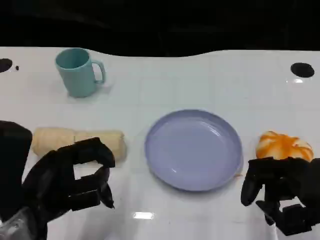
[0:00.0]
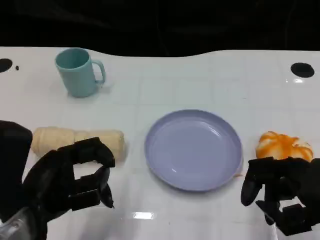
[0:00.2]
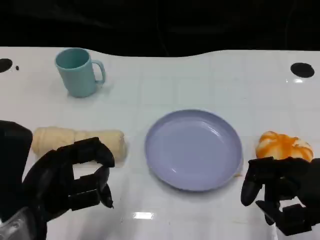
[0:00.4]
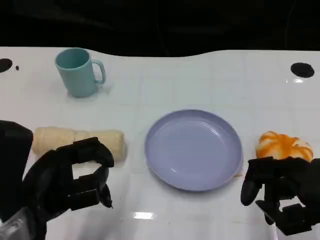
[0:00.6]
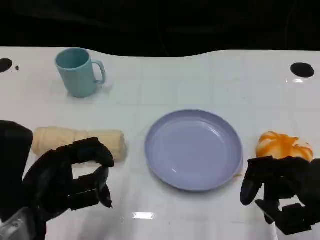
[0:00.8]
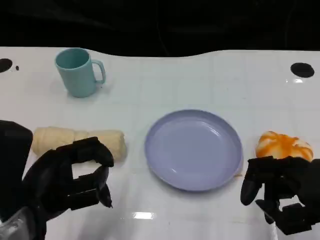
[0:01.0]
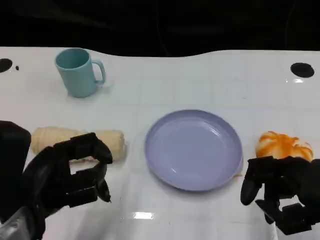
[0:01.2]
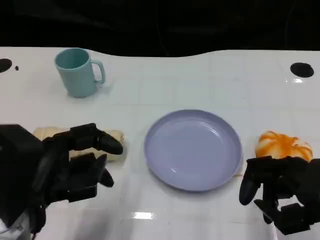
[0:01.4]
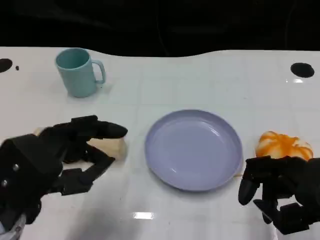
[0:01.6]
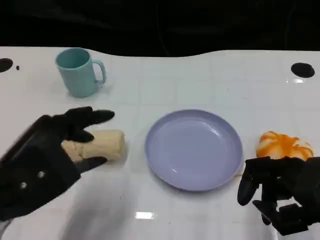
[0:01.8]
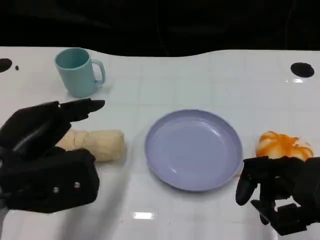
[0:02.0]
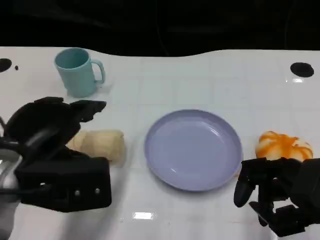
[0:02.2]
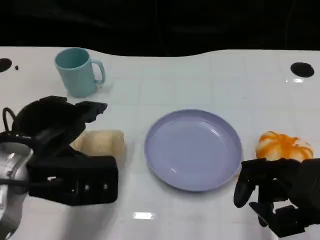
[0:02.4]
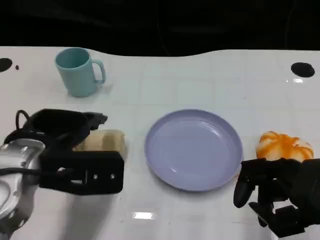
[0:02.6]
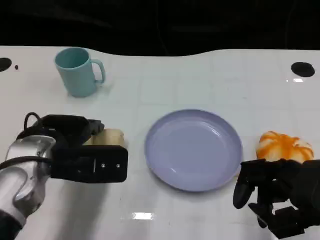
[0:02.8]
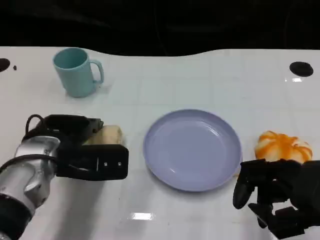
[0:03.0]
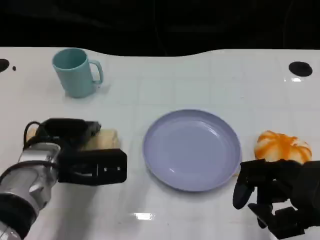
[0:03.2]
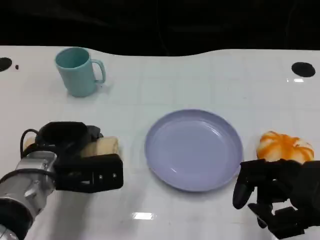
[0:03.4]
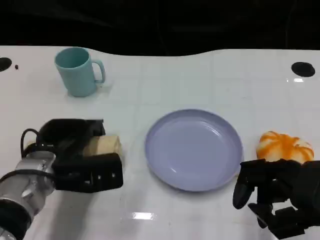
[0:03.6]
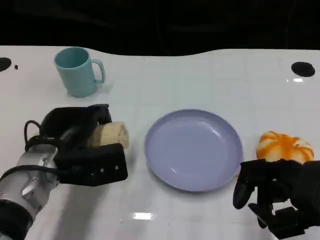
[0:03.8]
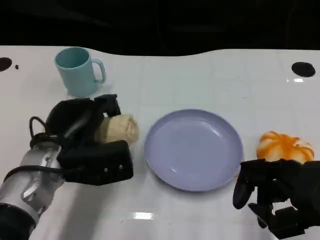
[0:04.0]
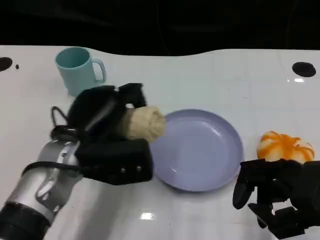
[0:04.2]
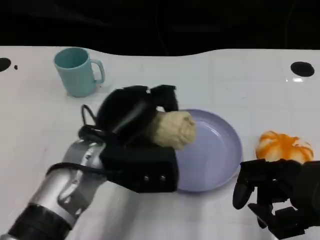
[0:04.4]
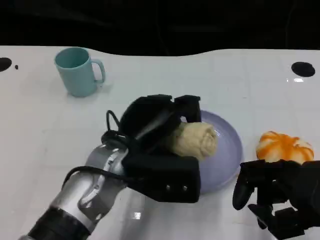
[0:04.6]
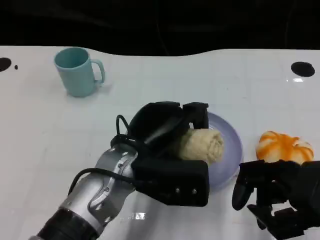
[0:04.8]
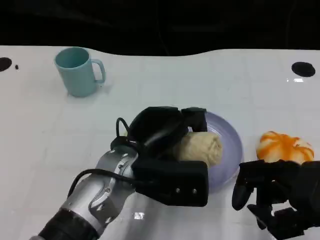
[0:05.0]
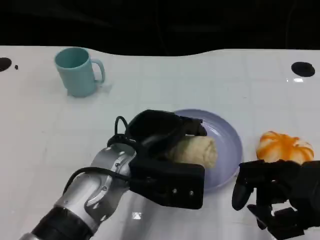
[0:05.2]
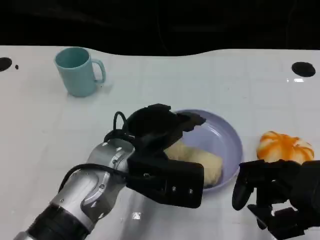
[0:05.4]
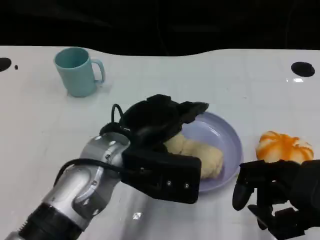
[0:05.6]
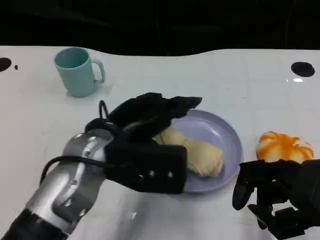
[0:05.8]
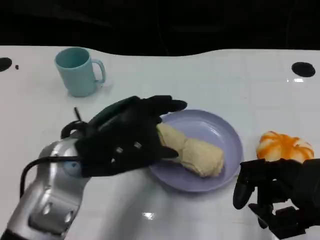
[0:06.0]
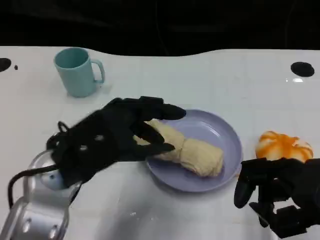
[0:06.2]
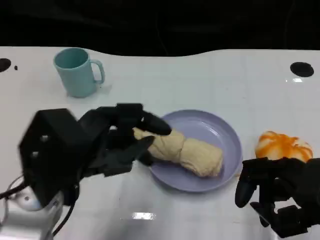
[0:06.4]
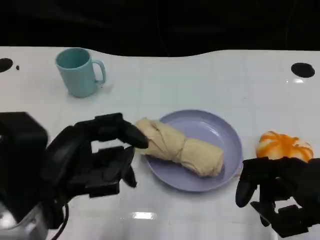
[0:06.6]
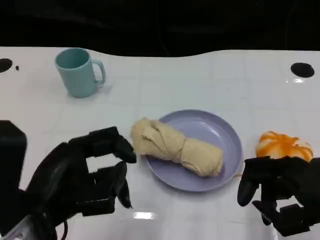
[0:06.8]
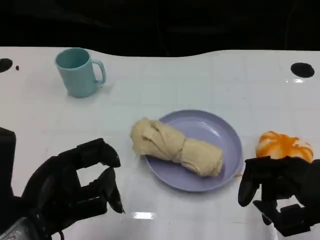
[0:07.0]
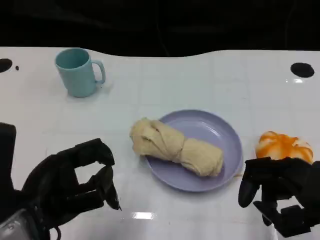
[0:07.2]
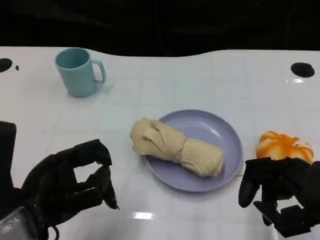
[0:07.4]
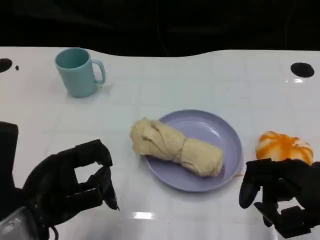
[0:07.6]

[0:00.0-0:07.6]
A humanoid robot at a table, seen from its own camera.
Task of the whole recording: Grasp the towel on the left side of the plate with the left hand and place it into the plate.
0:01.6 to 0:03.0: The left hand goes approximately 10 cm forward and downward.
0:03.0 to 0:04.6: The left hand moves to the right, about 10 cm.
0:04.6 to 0:06.0: The left hand is displaced to the left by approximately 5 cm.
0:06.0 to 0:07.6: The left hand heads backward and to the left, covering approximately 10 cm.

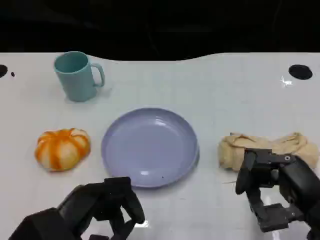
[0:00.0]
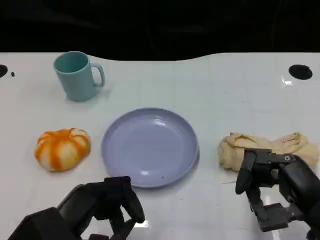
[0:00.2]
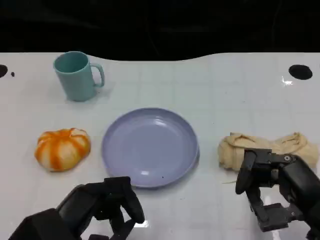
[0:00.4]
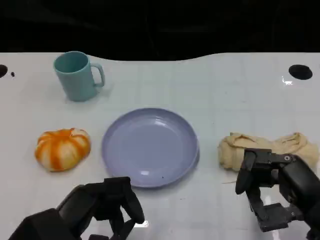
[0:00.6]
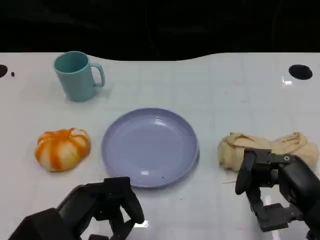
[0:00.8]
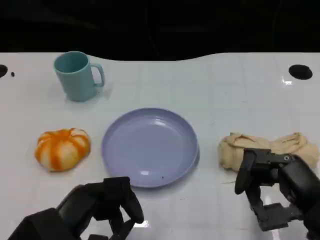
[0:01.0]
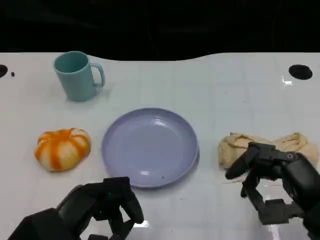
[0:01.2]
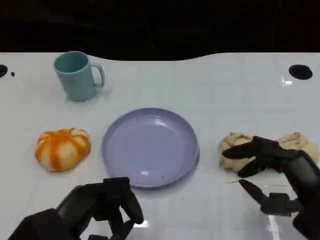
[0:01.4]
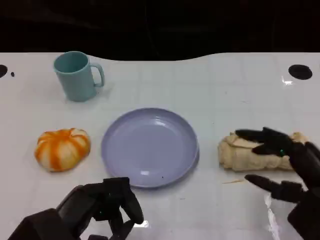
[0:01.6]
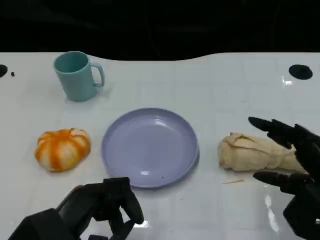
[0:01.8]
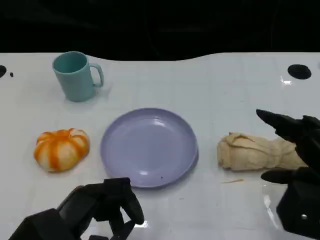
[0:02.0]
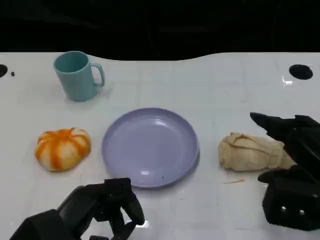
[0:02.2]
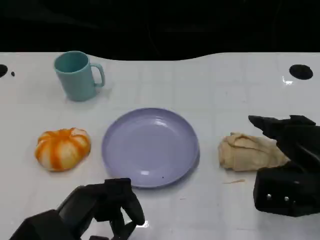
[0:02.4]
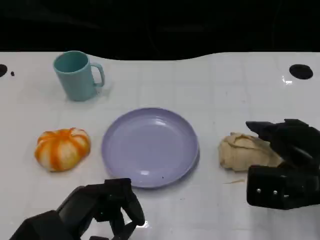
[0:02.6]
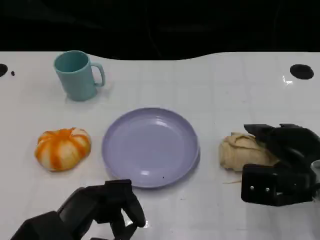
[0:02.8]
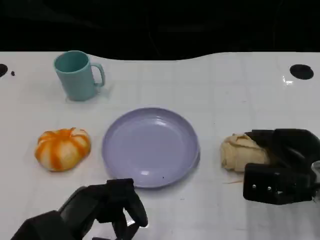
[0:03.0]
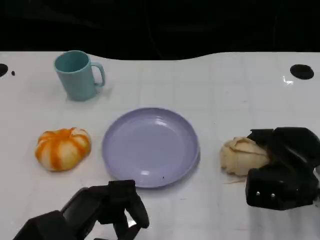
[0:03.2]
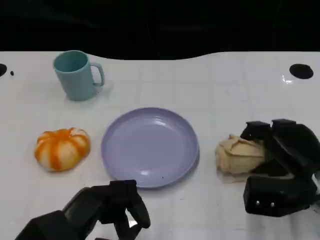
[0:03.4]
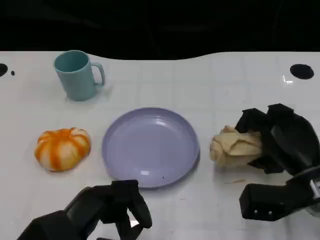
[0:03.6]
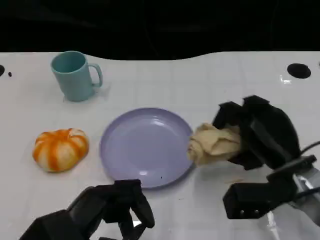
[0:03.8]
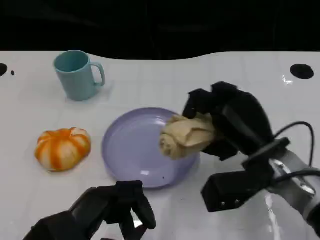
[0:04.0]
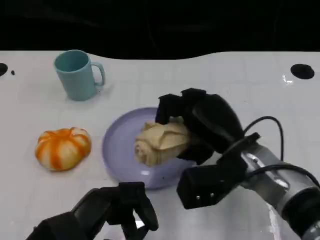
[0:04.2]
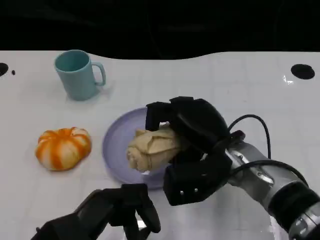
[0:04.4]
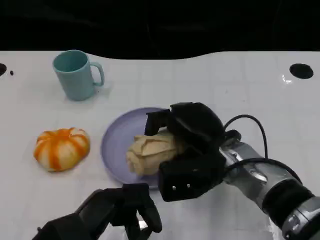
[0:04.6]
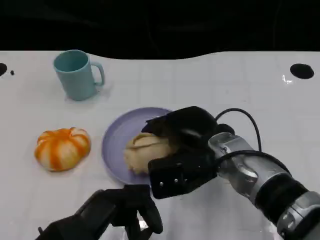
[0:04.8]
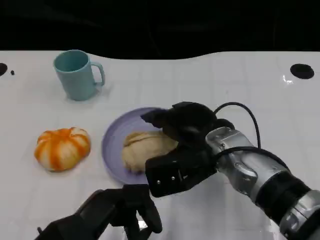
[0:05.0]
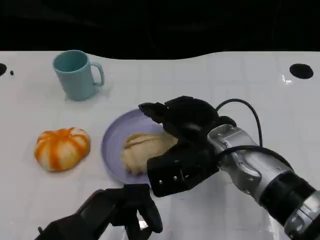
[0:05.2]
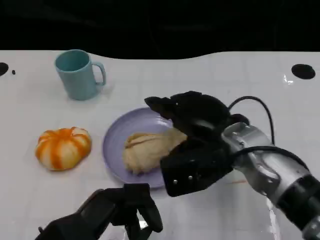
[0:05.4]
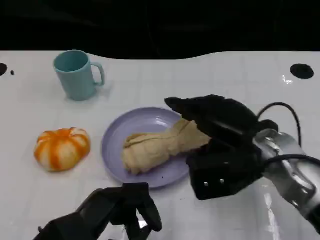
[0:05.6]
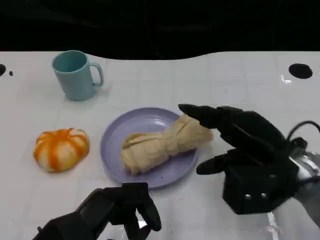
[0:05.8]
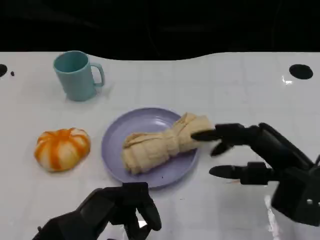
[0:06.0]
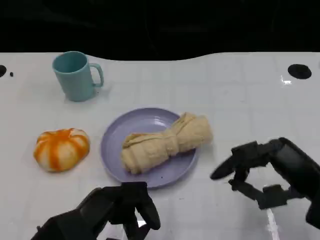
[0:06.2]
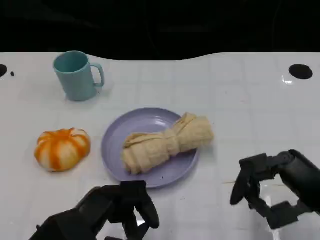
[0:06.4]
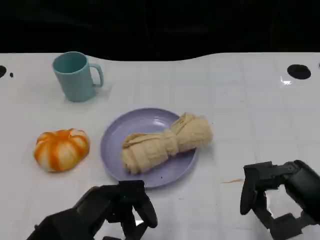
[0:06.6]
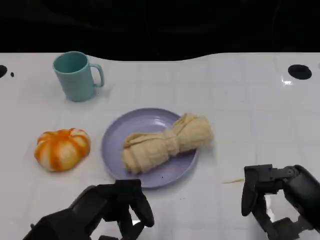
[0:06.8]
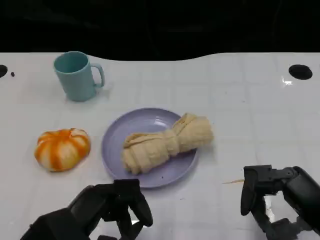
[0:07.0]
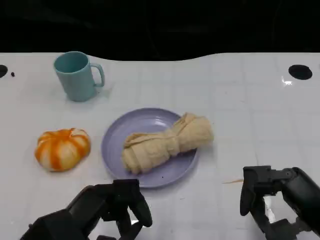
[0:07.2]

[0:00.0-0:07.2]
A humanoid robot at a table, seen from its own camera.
Task of the whole recording: Grasp the towel on the left side of the plate with the left hand and place it into the plate.
0:00.0 to 0:01.4: There are only small adjustments of the hands.
0:01.4 to 0:02.8: The right hand heads forward, covering some 10 cm.
0:02.8 to 0:04.4: The right hand moves to the left, approximately 15 cm.
0:04.4 to 0:05.8: The right hand goes about 10 cm to the right.
0:05.8 to 0:07.2: The right hand is displaced backward by about 10 cm.

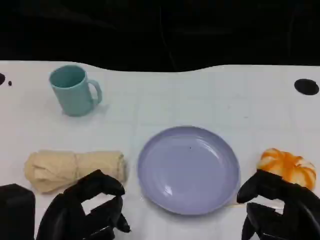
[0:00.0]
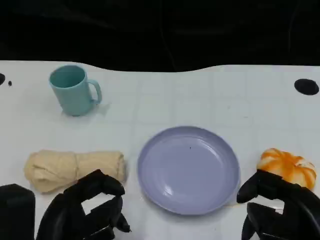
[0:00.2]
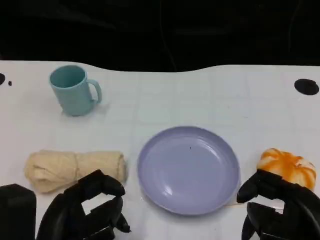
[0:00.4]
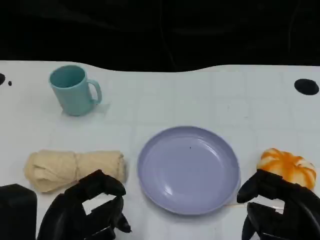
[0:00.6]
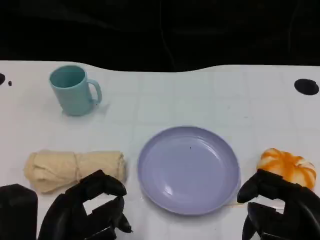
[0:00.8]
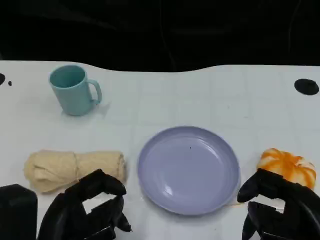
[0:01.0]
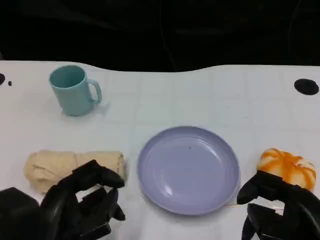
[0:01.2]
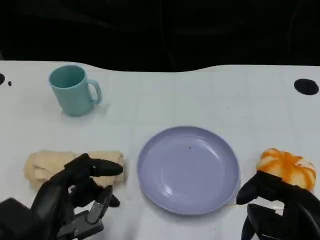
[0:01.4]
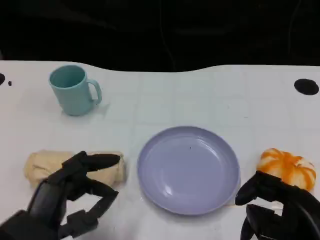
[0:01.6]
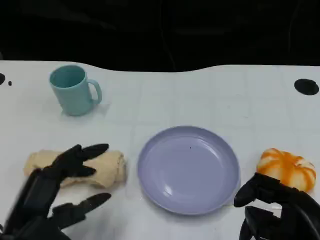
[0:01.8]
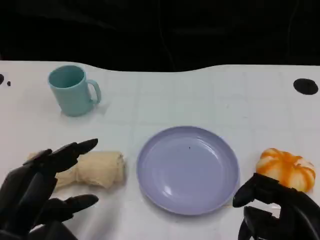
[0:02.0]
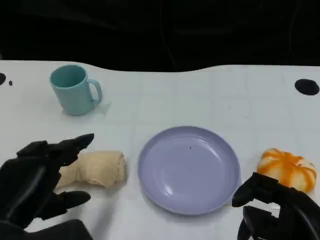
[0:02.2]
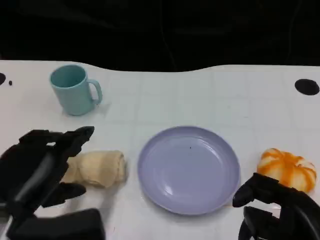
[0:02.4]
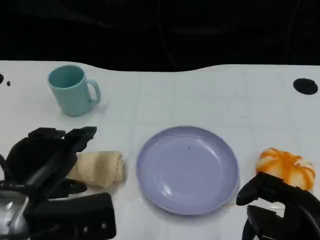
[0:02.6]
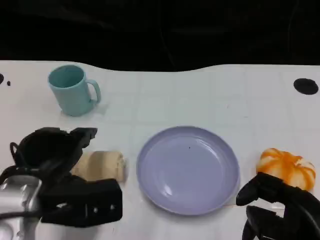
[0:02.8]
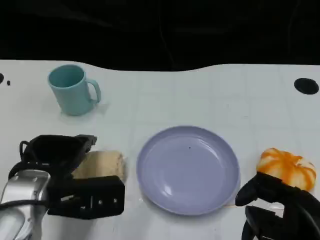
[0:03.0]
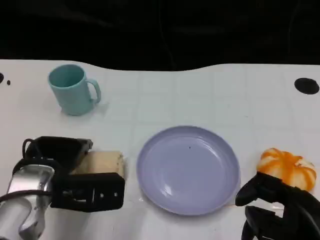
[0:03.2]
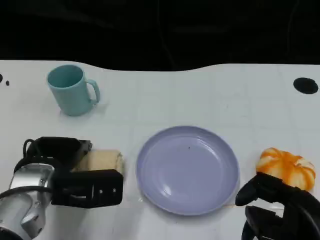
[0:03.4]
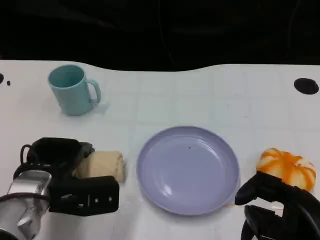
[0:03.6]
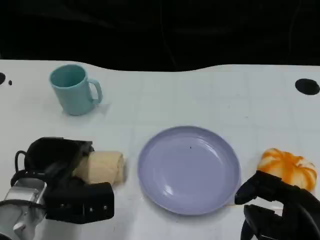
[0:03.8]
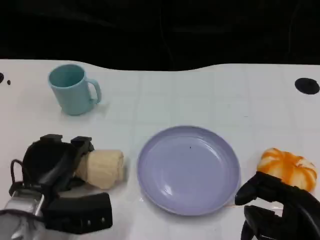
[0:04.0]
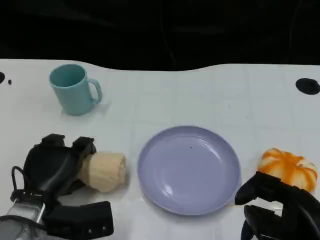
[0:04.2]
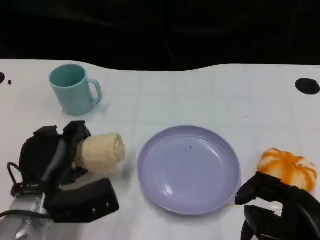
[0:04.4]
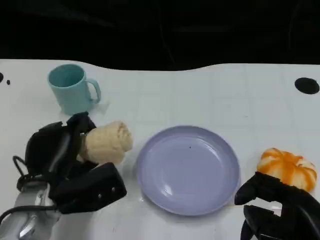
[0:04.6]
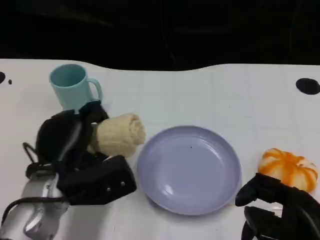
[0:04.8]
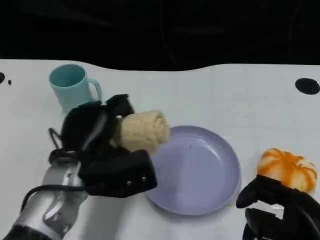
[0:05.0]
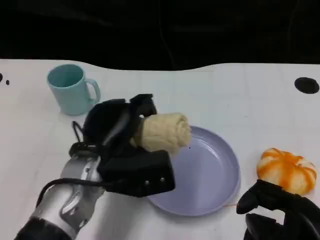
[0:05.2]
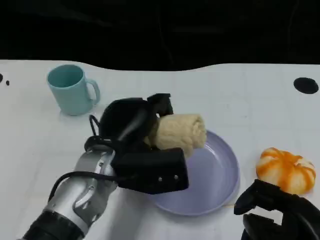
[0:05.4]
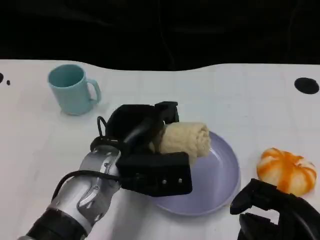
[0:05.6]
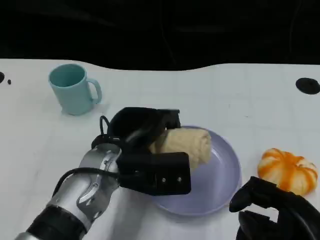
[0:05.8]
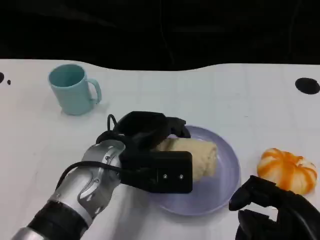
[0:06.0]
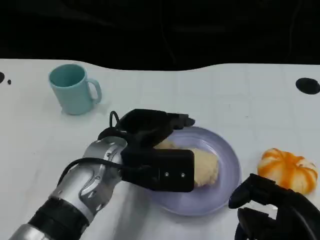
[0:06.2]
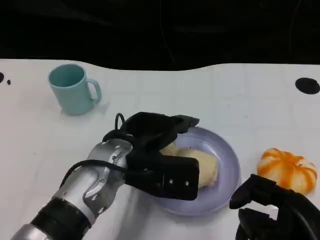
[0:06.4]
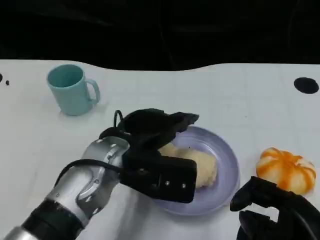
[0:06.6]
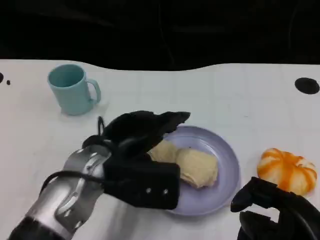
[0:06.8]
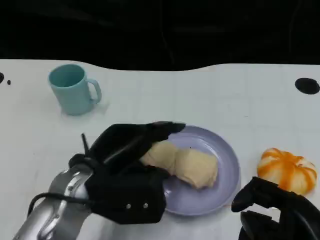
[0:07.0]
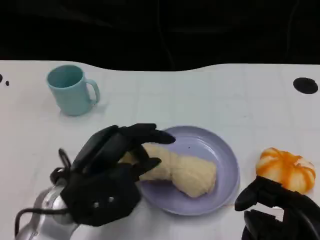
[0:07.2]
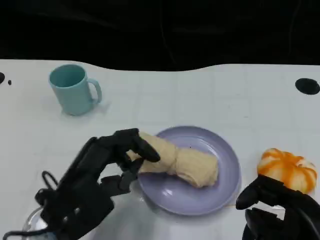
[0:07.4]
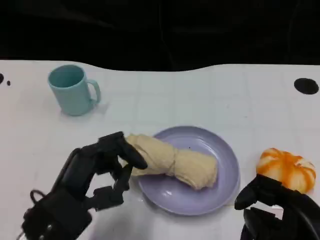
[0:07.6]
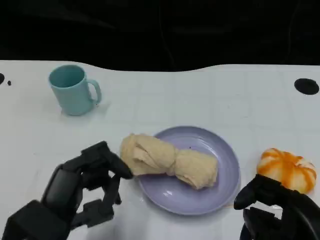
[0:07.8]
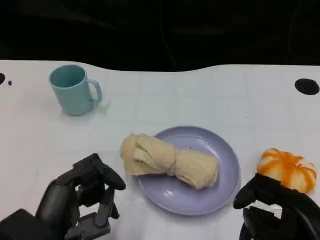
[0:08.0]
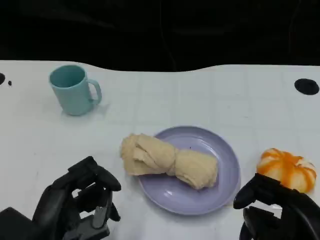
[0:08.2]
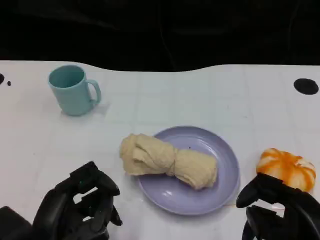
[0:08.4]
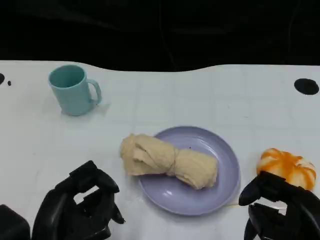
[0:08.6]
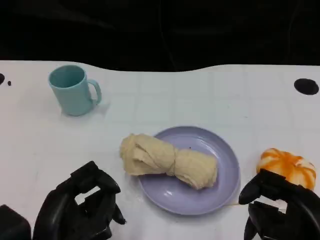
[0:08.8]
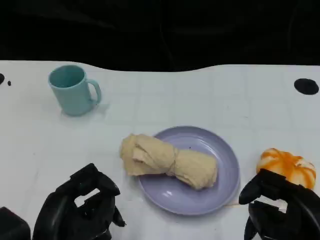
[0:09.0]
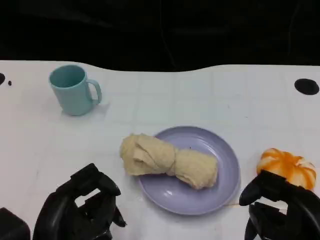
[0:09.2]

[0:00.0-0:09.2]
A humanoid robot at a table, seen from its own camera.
Task of the whole recording: Grasp the towel on the left side of the plate with the left hand and place it into the plate.
0:01.6 to 0:03.0: The left hand travels forward by some 10 cm.
0:04.6 to 0:06.2: The left hand heads to the right and upward, covering about 10 cm.
0:06.2 to 0:07.6: The left hand moves backward and to the left, about 15 cm.
